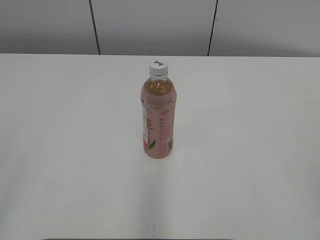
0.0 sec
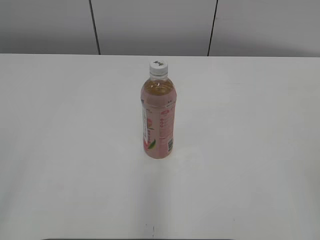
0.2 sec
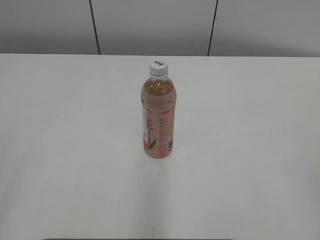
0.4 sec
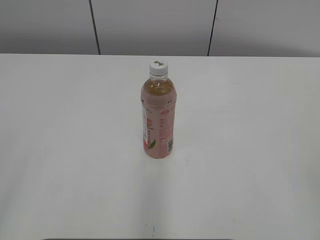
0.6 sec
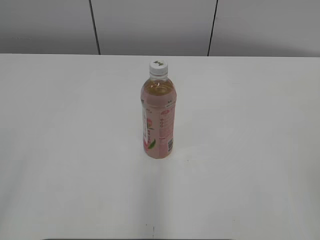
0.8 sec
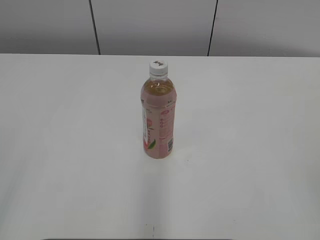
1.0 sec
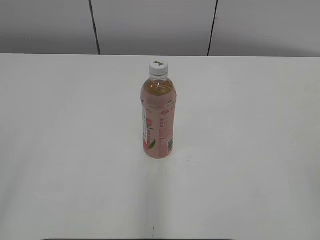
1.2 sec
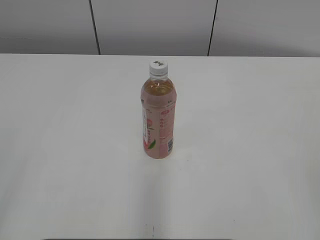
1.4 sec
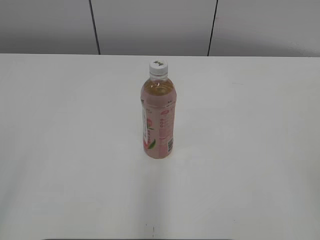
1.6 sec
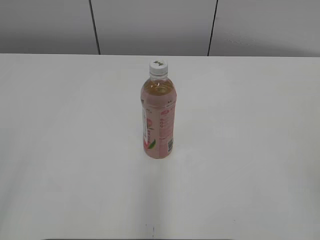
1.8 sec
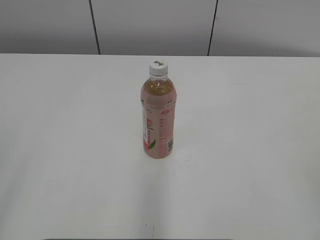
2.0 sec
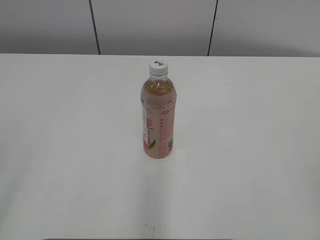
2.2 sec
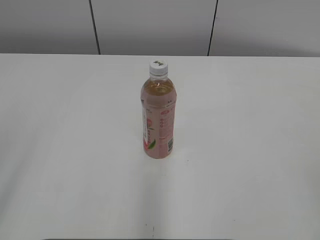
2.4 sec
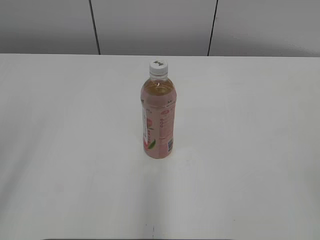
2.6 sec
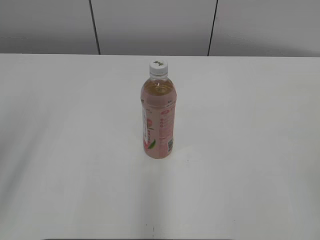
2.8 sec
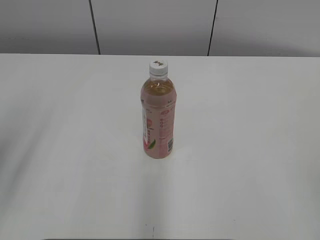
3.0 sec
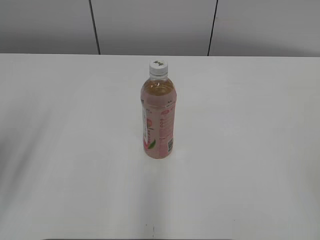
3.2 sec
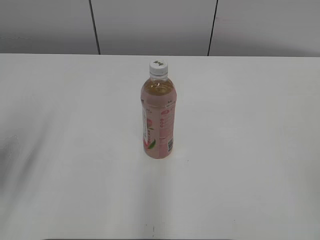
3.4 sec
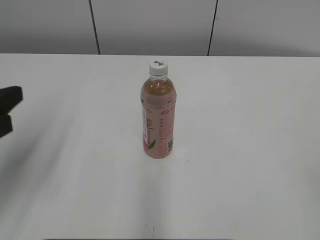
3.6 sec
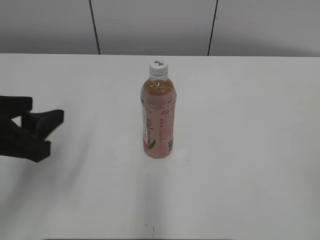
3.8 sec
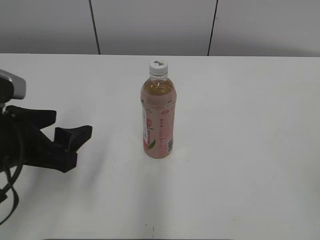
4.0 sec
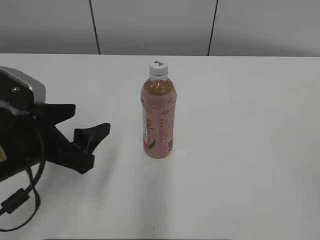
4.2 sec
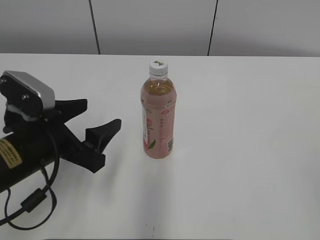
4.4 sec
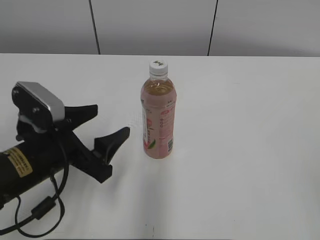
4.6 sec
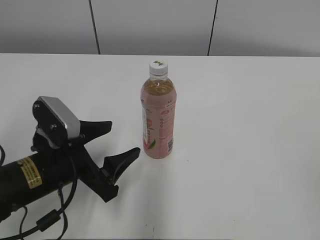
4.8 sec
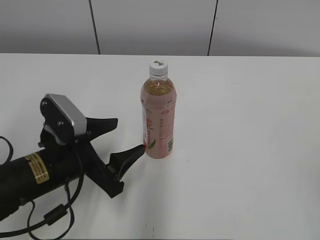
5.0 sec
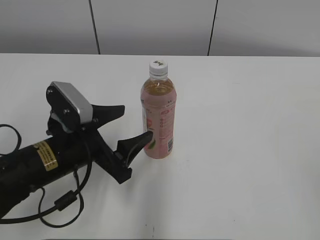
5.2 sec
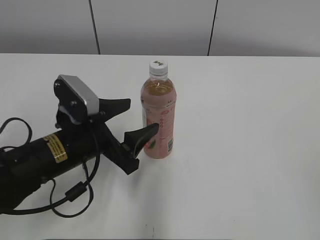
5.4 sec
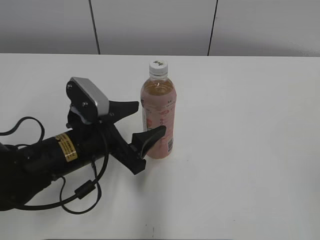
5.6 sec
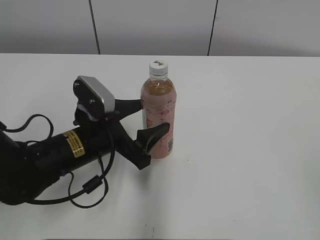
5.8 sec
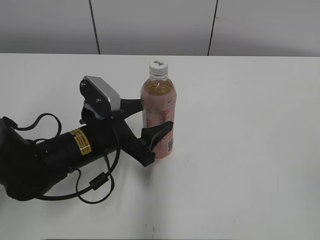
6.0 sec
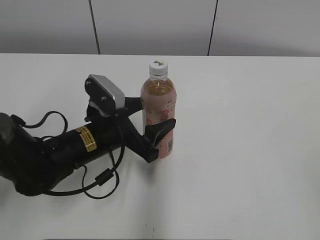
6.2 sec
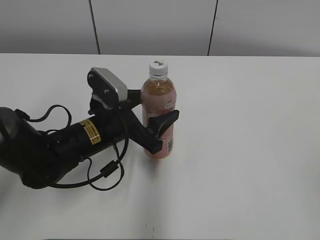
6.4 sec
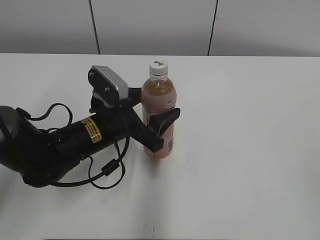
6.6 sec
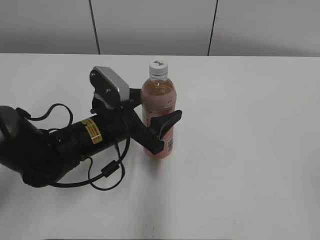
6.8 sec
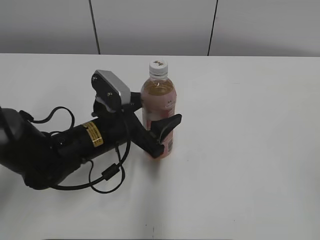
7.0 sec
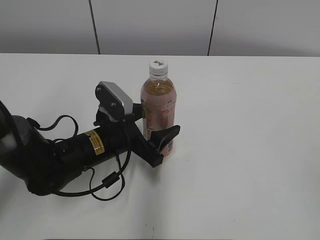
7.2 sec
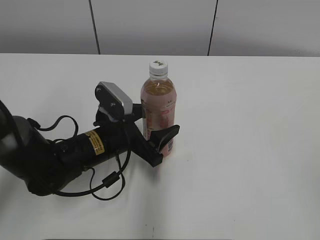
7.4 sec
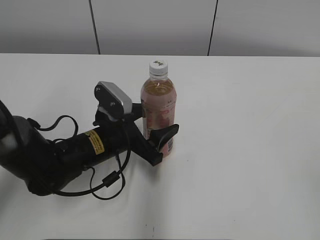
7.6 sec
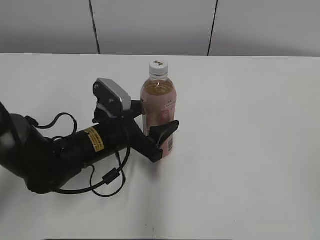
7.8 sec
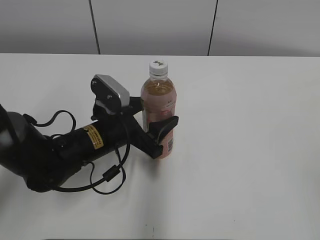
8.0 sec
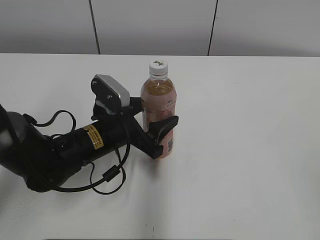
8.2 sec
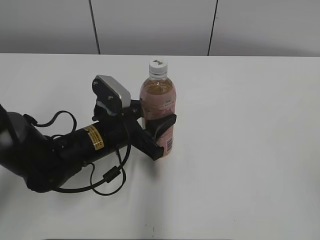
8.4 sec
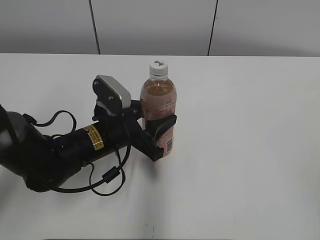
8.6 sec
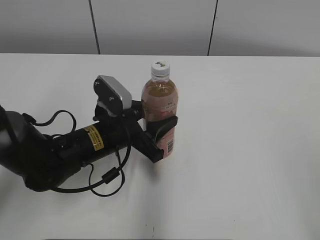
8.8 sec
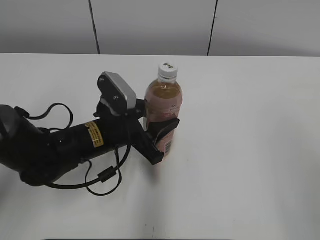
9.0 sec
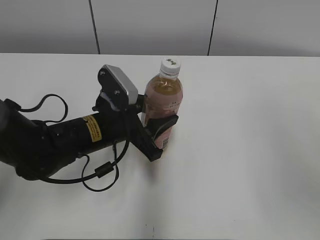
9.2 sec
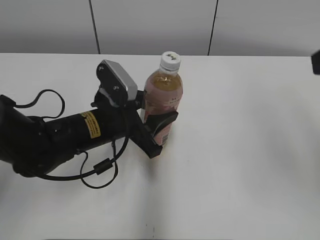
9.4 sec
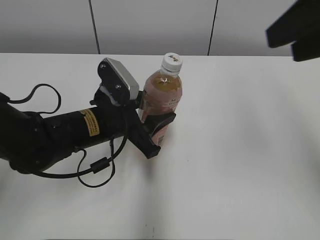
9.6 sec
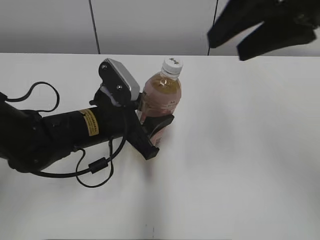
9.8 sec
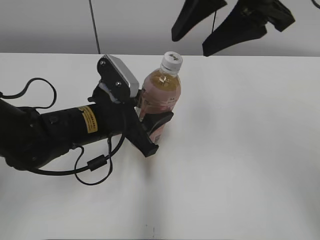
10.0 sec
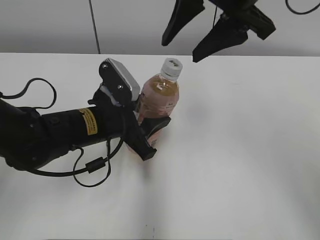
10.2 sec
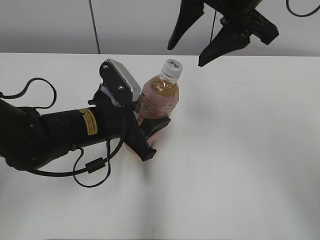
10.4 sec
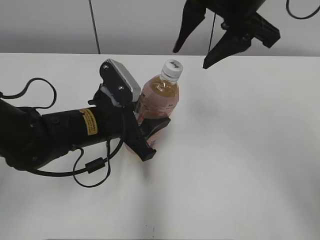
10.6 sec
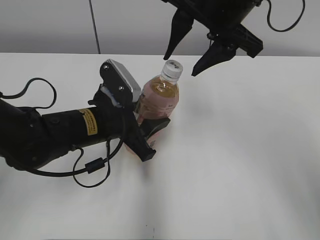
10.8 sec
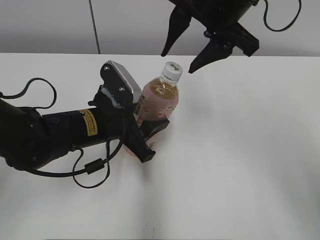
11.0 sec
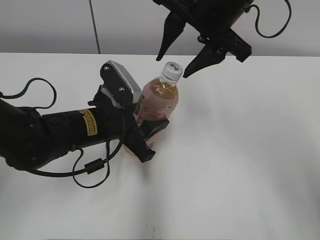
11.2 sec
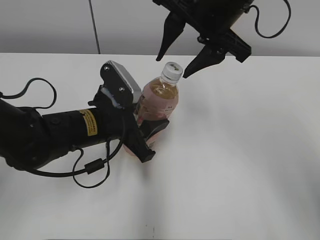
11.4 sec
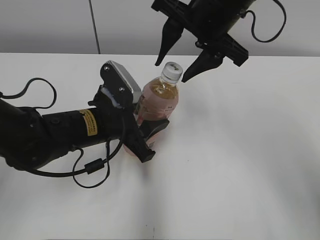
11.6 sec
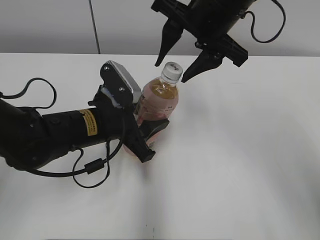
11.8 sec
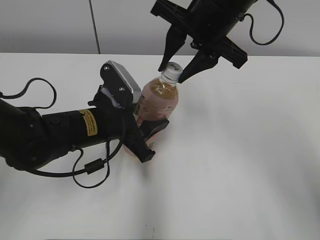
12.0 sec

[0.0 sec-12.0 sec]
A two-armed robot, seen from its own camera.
Step, 0.0 sec to 8.4 sec: Grab the Peach Oolong Tea with the left hand.
3.0 sec to 4.4 sec: The left gripper heads downward, to the right and forward, covering about 20 cm, and opens up.
4.4 sec to 6.0 sec: The left gripper shifts approximately 10 cm to the right, forward and downward.
6.0 sec to 7.6 sec: The grippers stay close to where they were, moving slightly.
7.6 sec to 9.0 sec: The right gripper moves some 5 cm. The left gripper closes.
9.0 sec to 10.4 sec: The right gripper shifts some 30 cm forward and to the left.
10.4 sec to 12.0 sec: The right gripper moves approximately 5 cm.

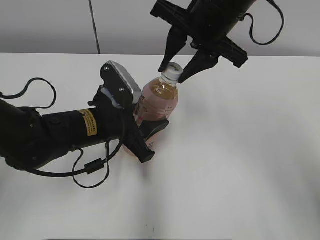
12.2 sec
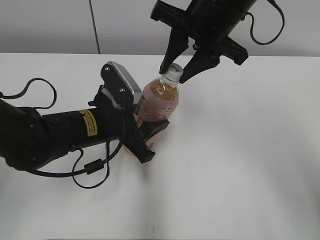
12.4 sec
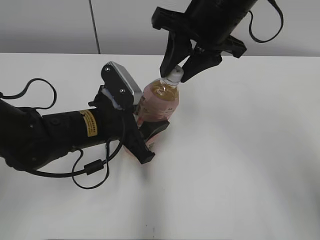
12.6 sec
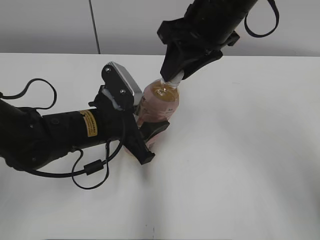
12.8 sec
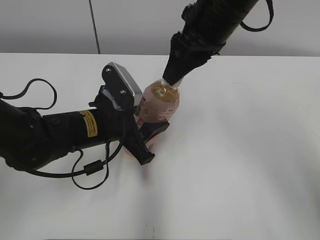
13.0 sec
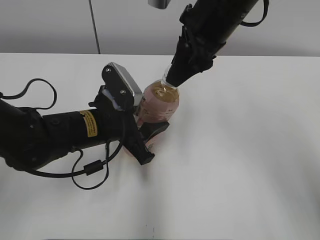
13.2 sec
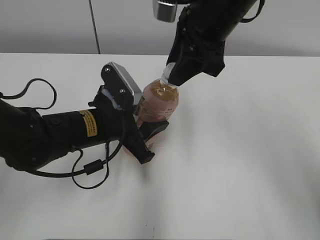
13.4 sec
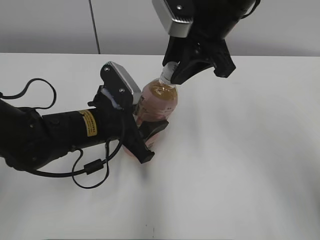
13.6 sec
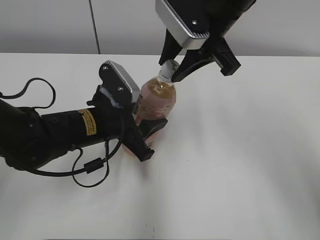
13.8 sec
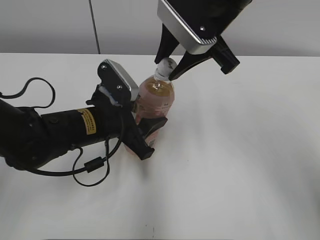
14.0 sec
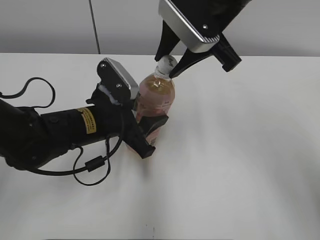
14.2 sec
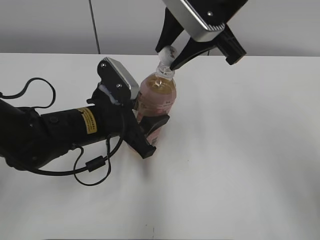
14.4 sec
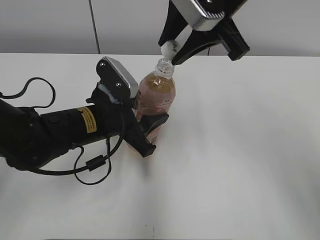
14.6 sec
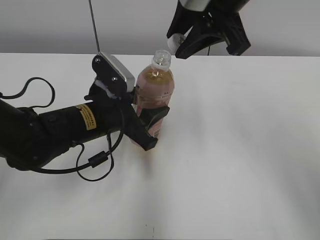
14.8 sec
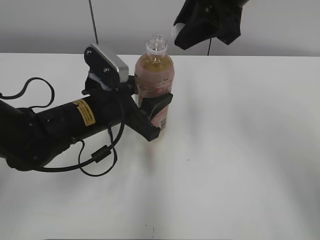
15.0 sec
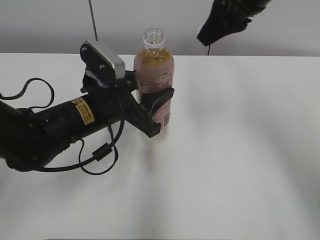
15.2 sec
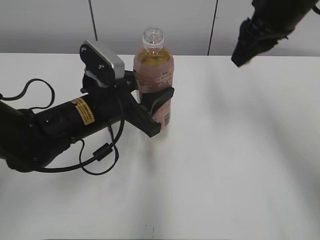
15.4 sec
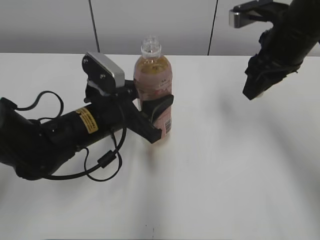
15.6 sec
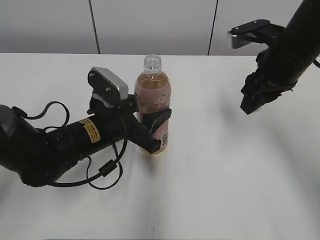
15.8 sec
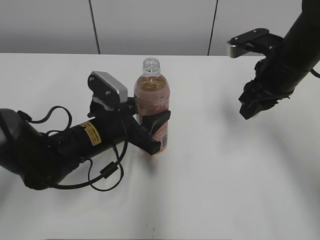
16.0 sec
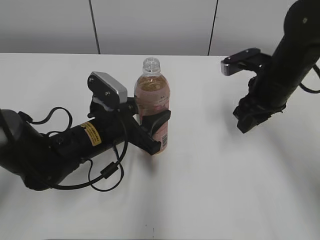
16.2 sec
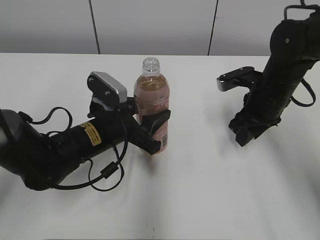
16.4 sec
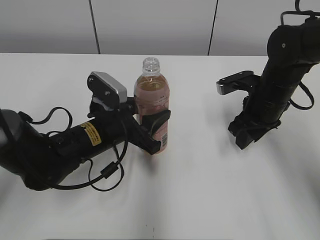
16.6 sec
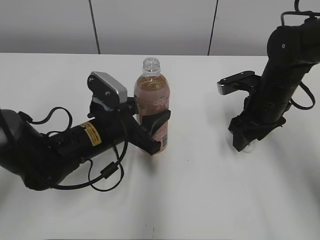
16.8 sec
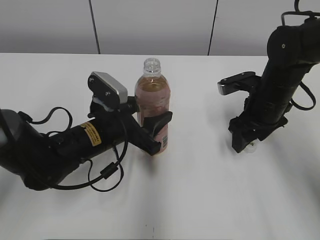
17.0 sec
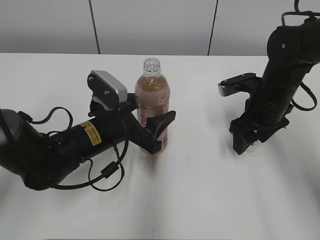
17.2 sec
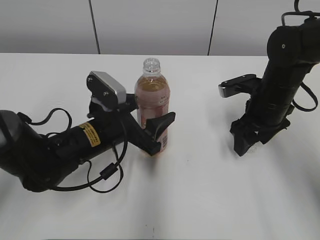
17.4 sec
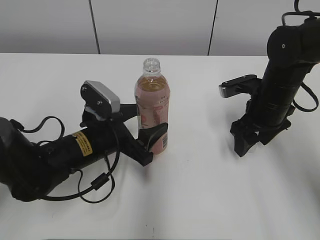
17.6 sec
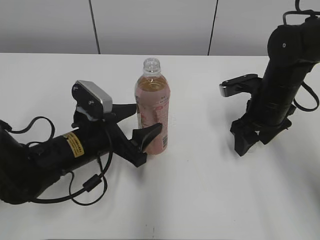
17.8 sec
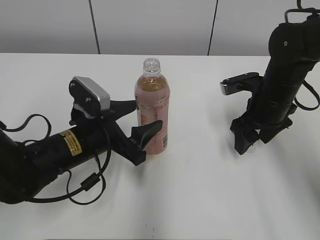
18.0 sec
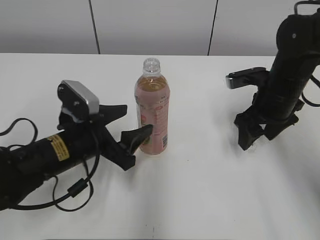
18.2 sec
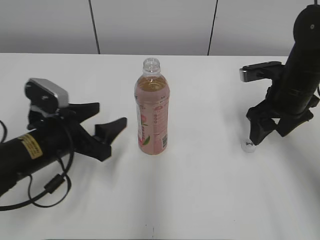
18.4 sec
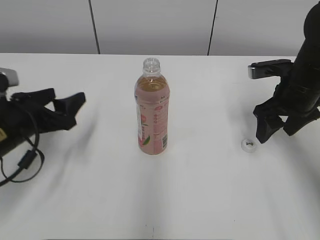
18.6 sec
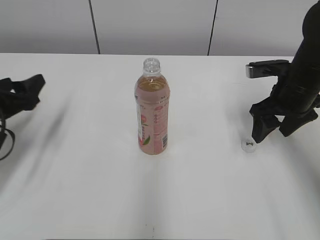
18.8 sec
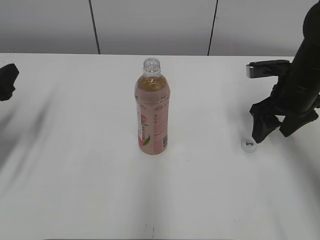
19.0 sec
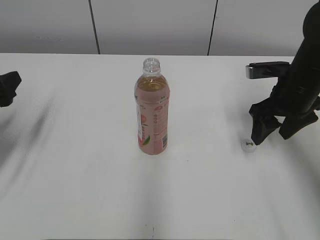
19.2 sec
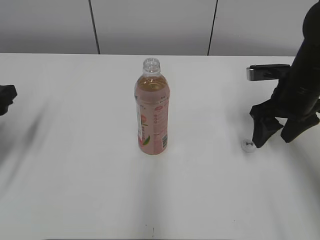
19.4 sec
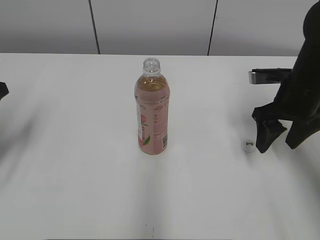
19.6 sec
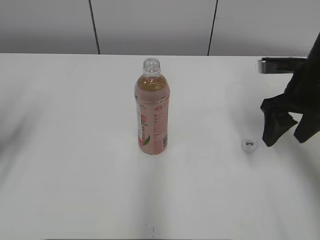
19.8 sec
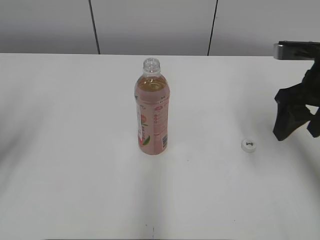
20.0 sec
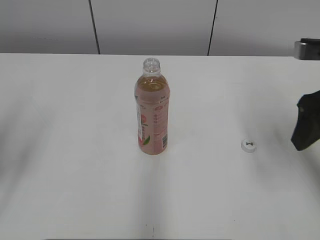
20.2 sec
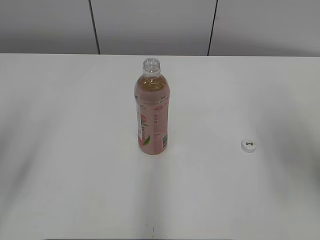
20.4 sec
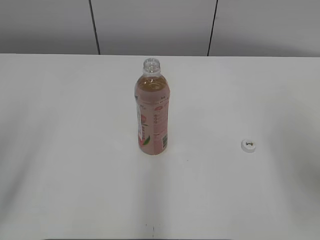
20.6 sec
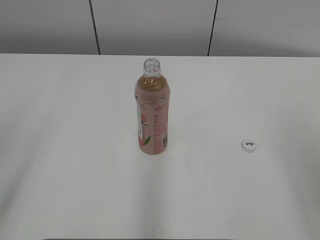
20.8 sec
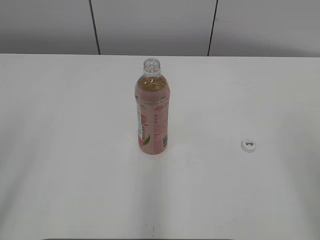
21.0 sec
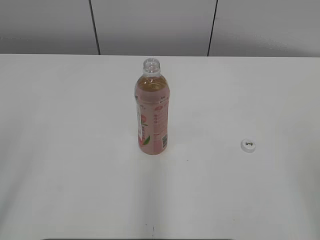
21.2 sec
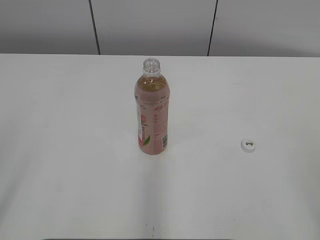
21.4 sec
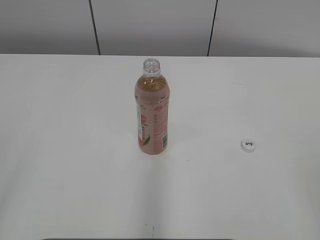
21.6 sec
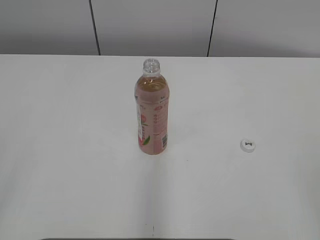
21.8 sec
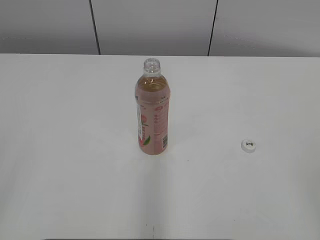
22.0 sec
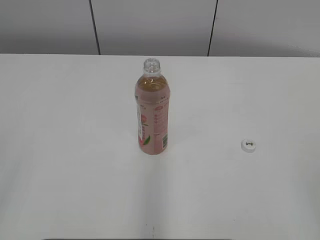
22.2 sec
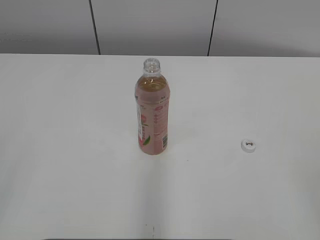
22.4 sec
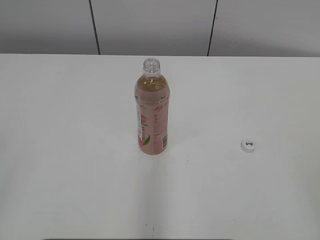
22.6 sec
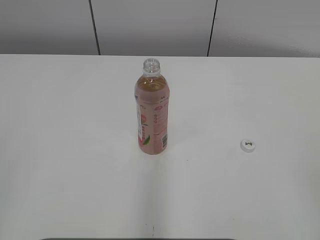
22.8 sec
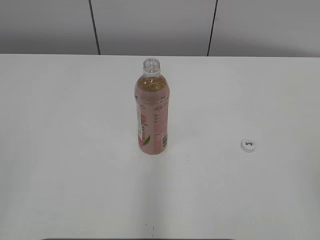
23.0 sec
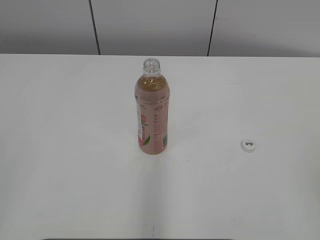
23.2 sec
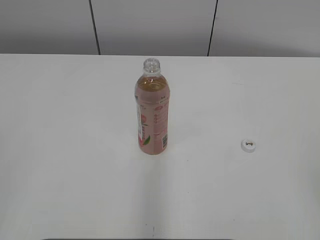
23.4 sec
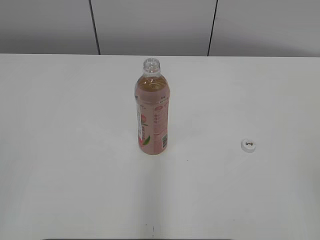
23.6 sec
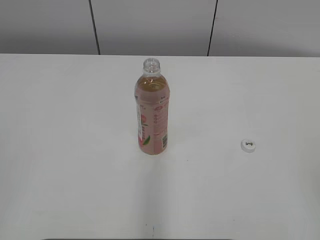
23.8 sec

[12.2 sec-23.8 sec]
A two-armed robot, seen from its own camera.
Step, 12.2 sec to 14.2 sec: Secure the Peach Oolong Tea with the left hand.
Step, 14.4 sec to 16.8 sec: Place the bottle cap on the right.
Step, 17.0 sec to 17.2 sec: Place the Peach Oolong Tea with the left hand.
15.0 sec to 16.6 sec: The right gripper shifts approximately 25 cm downward and to the right.
16.6 sec to 18.0 sec: The right gripper opens its fingers. Meanwhile the left gripper opens its fingers.
18.0 sec to 19.4 sec: The left gripper shifts roughly 20 cm to the left.
19.4 sec to 21.0 sec: Both grippers move backward and upward, roughly 25 cm.
